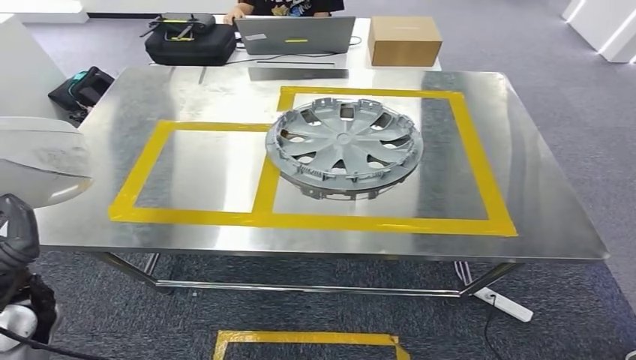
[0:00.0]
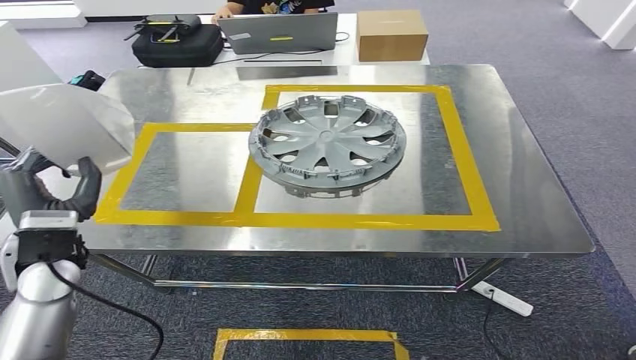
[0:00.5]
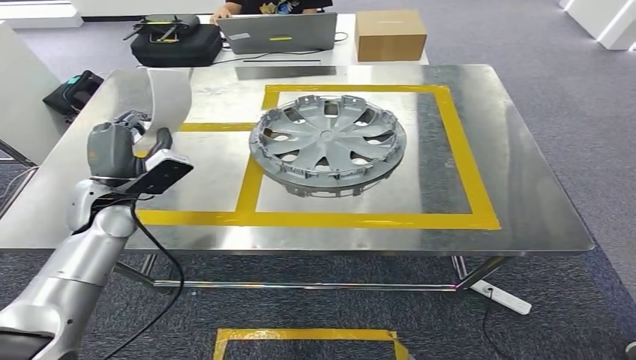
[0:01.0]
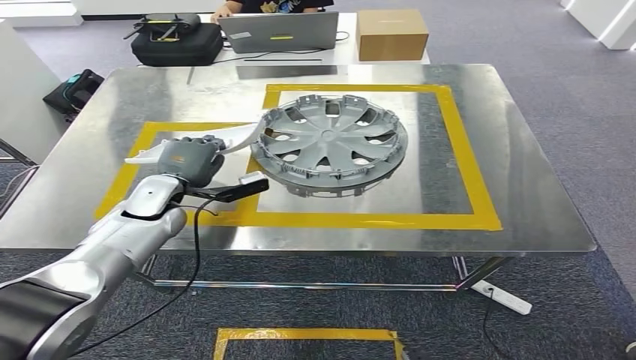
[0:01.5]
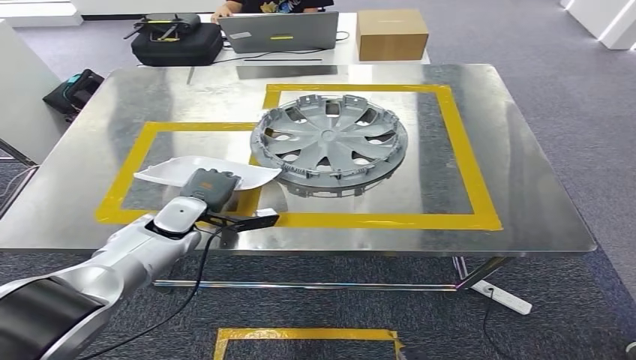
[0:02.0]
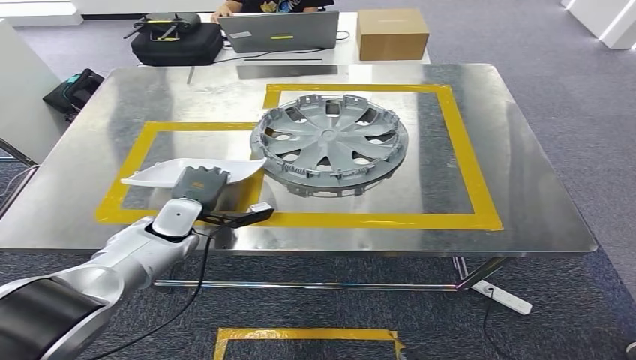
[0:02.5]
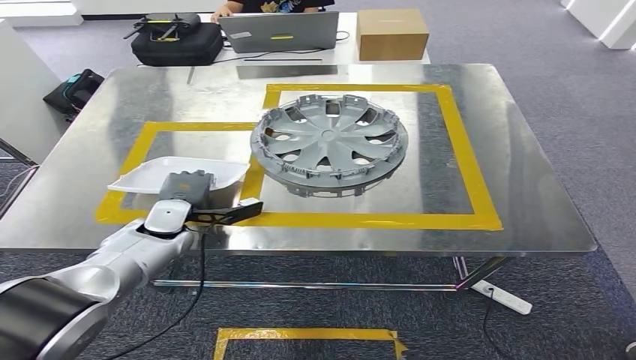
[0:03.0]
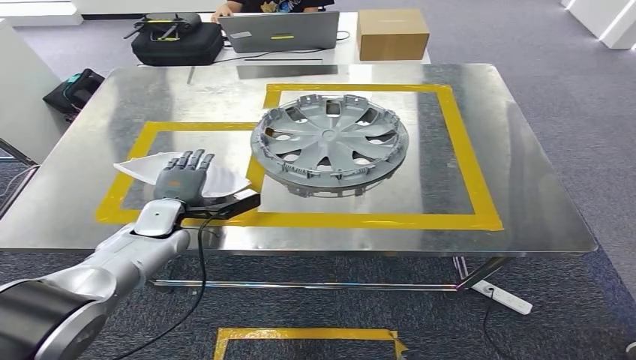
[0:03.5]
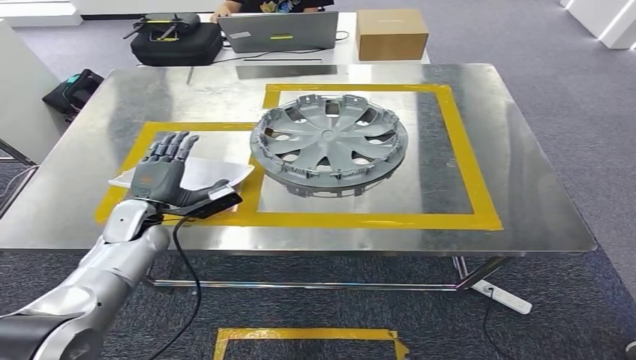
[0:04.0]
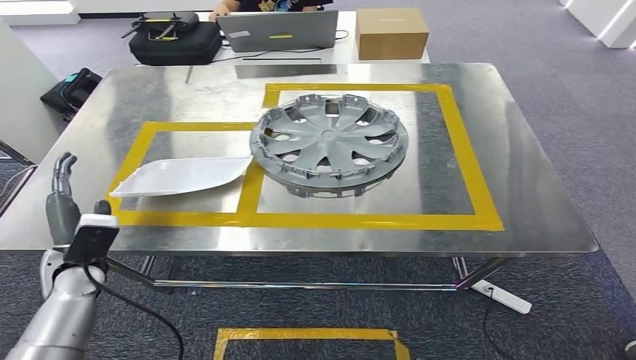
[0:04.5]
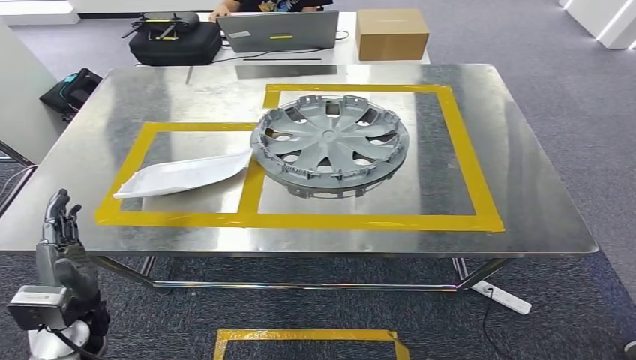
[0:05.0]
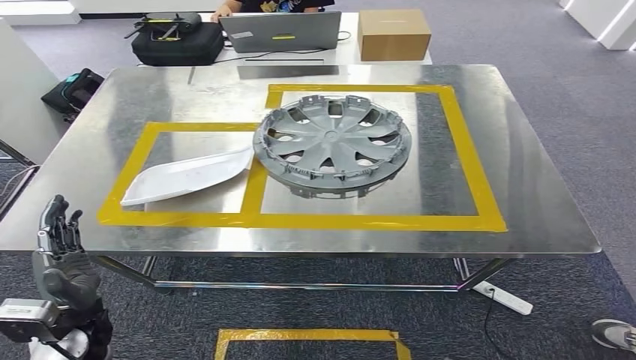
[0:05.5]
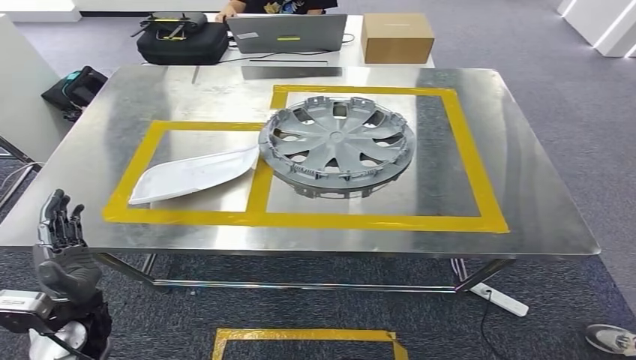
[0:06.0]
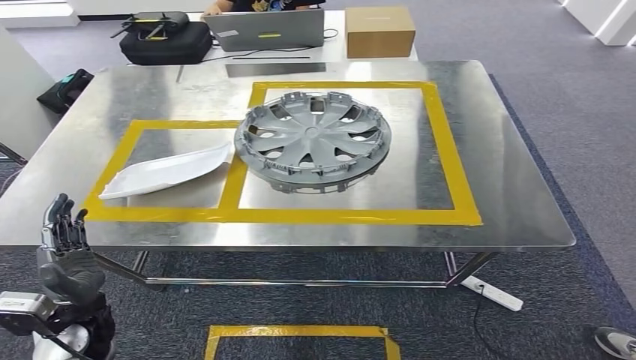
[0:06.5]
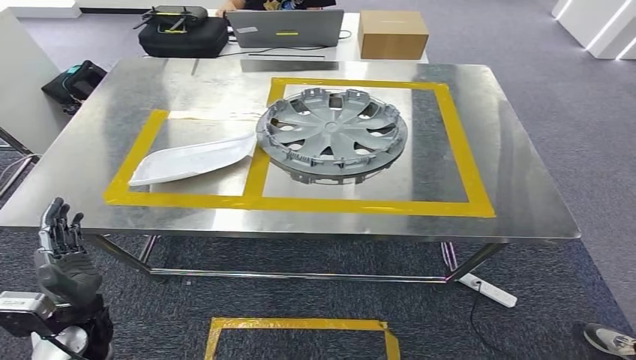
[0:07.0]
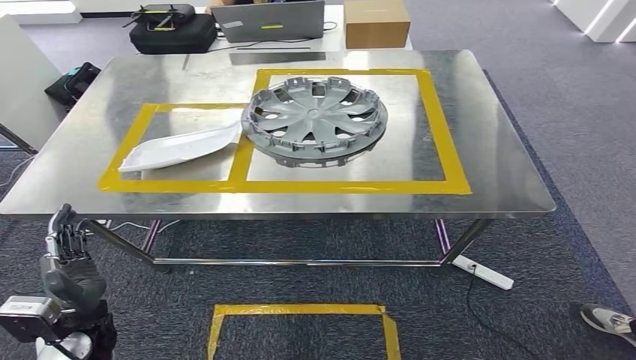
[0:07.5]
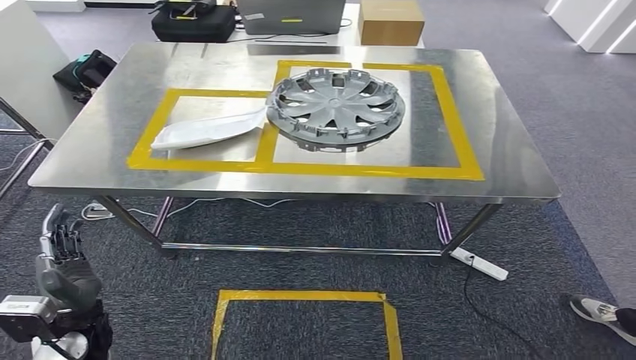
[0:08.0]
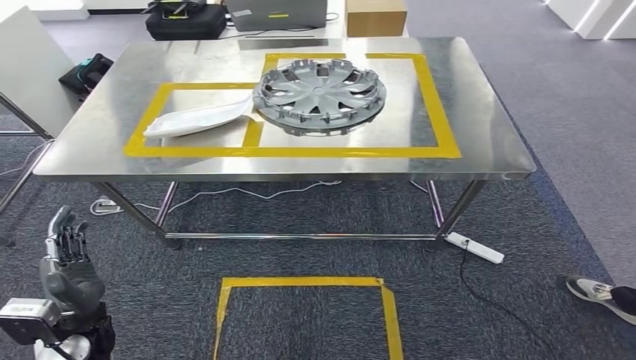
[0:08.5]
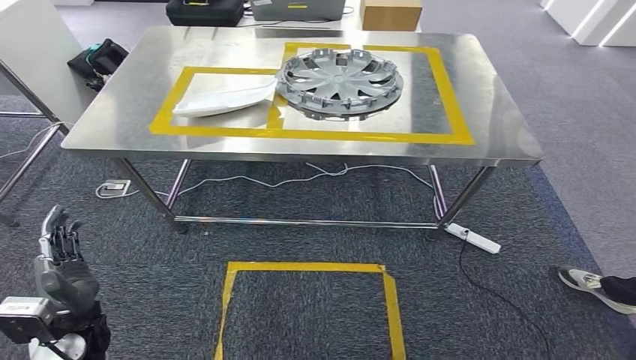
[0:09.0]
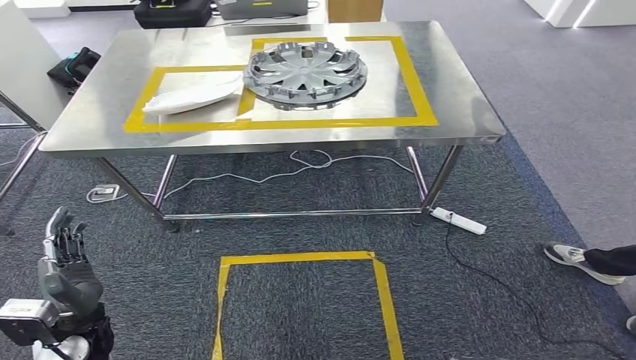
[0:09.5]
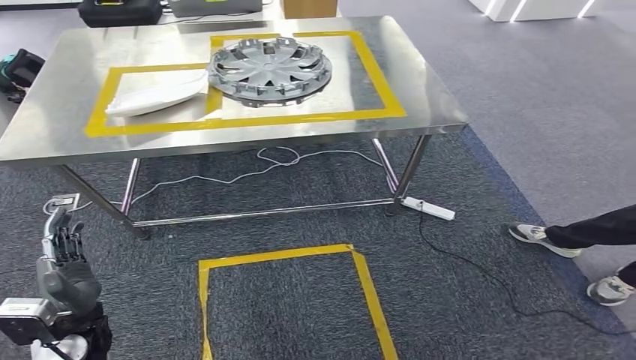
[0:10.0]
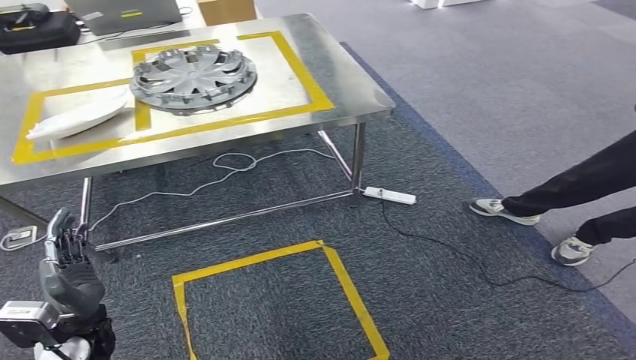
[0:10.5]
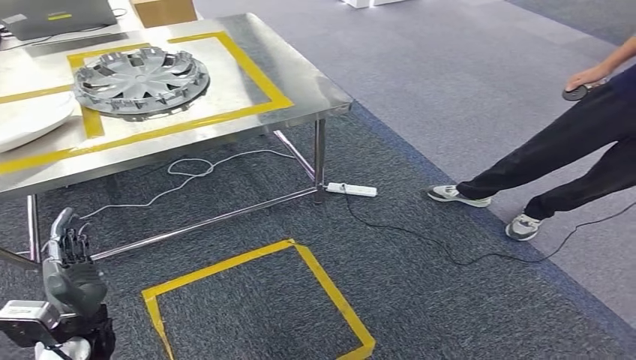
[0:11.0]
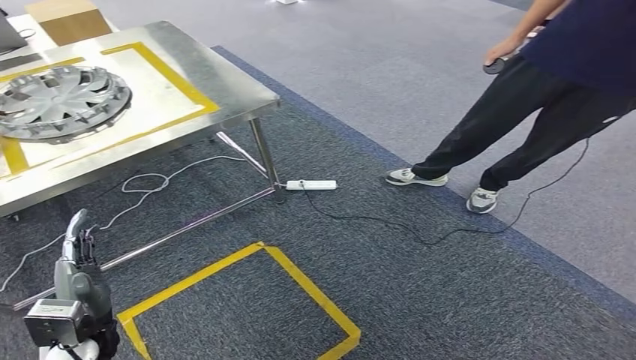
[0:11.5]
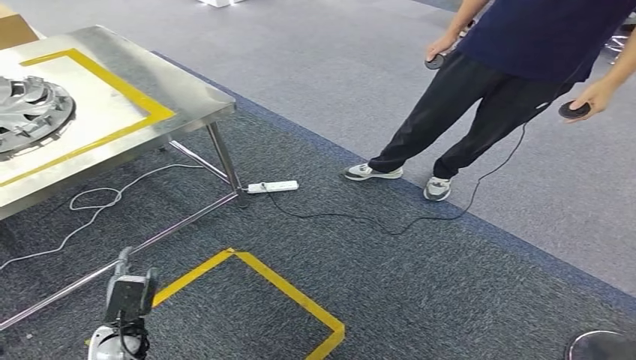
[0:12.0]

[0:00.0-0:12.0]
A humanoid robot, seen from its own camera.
Step, 0:00.0 to 0:05.5: Insert the small component into the corresponding slot on the workbench.
0:02.0 to 0:04.0: The left hand is displaced to the left by roughly 5 cm.

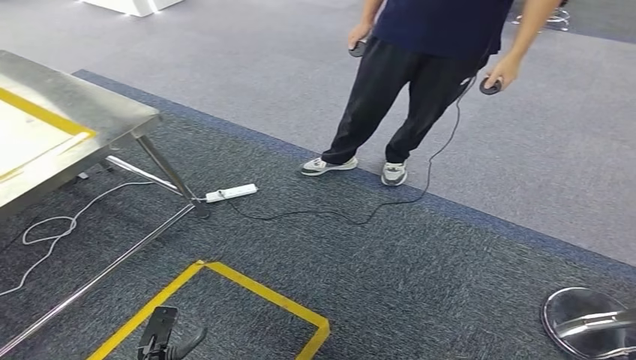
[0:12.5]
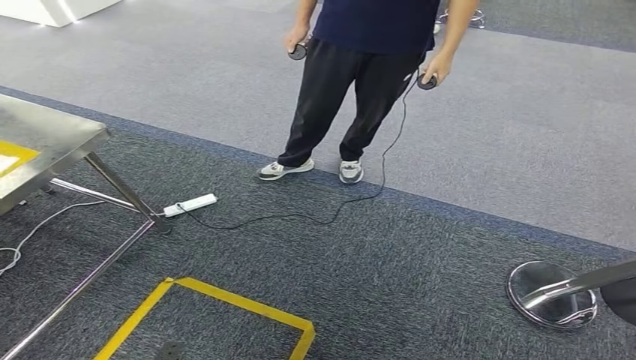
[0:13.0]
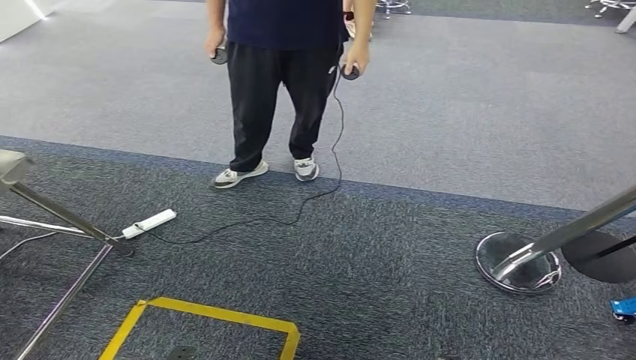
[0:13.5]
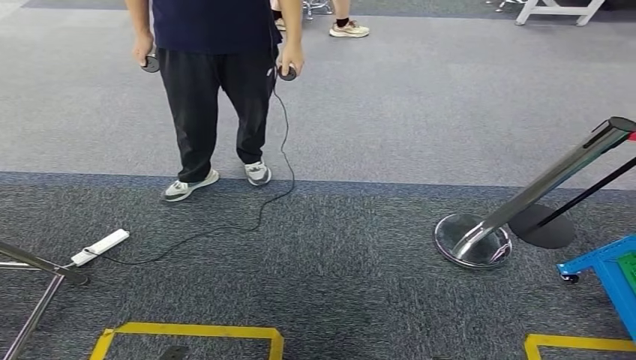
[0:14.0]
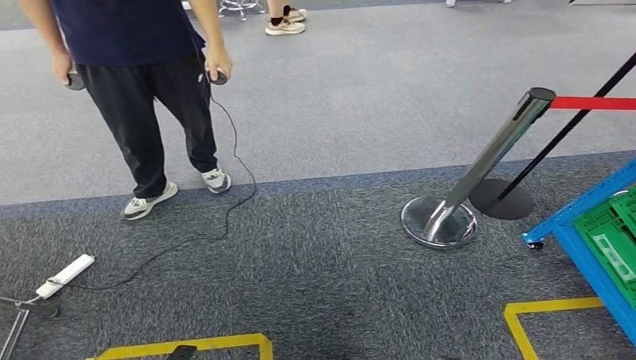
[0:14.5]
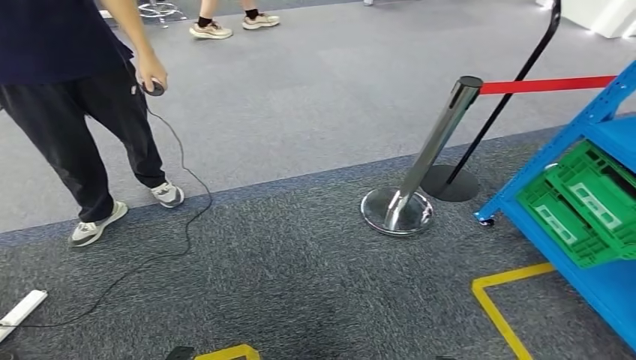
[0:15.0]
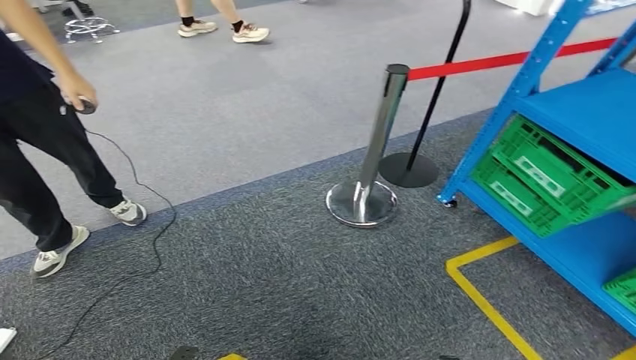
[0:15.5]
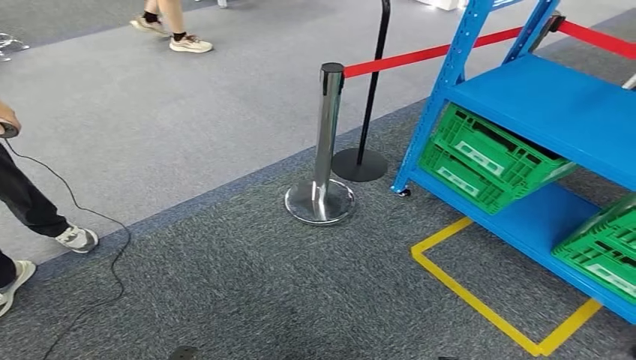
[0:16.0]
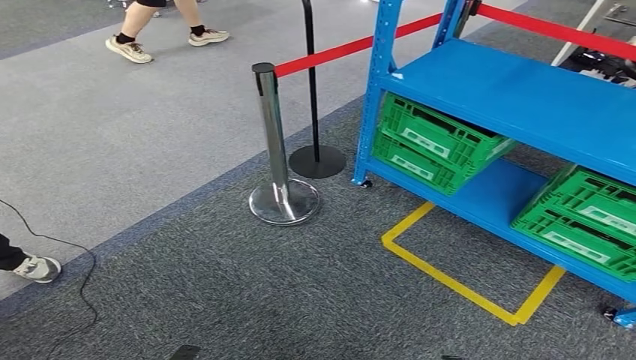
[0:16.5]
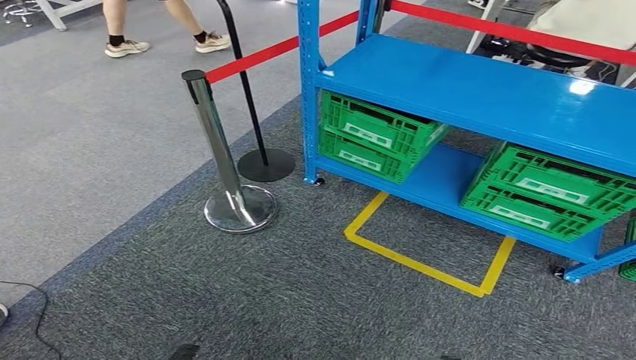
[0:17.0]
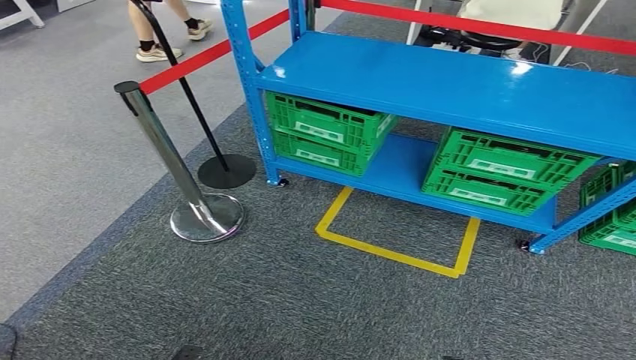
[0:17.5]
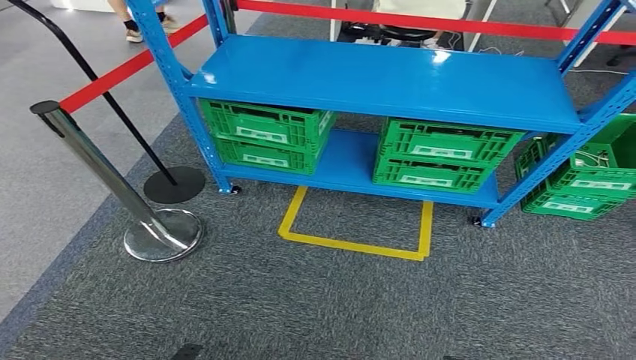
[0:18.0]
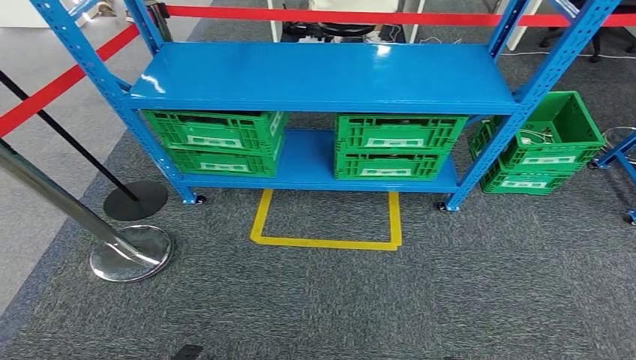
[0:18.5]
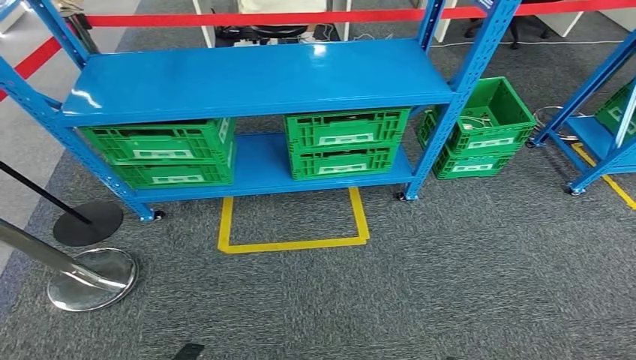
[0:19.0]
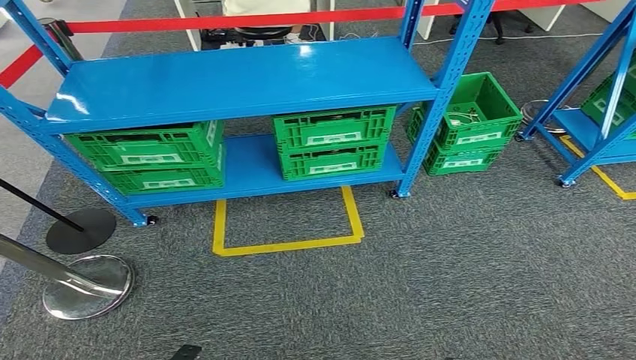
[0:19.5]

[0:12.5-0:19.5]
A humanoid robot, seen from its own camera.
Step, 0:12.5 to 0:19.5: Move to the initial position of the workbench.
